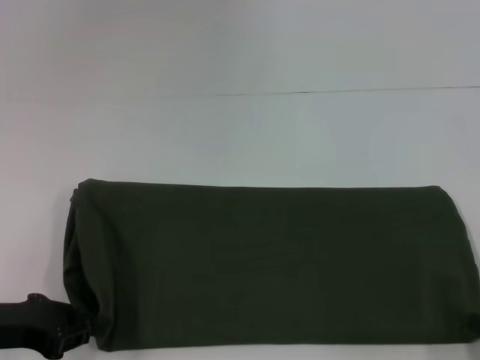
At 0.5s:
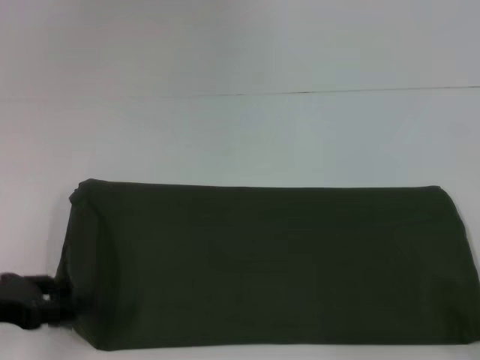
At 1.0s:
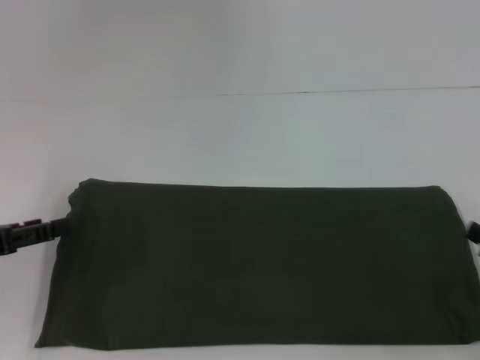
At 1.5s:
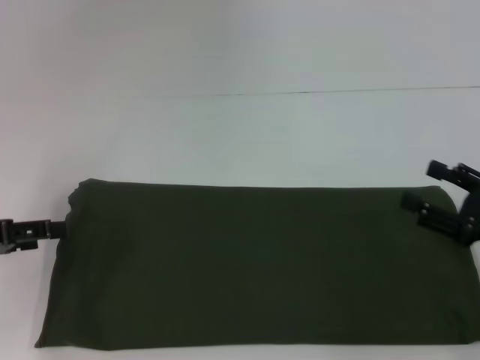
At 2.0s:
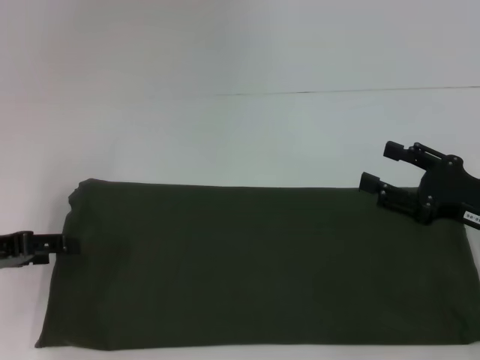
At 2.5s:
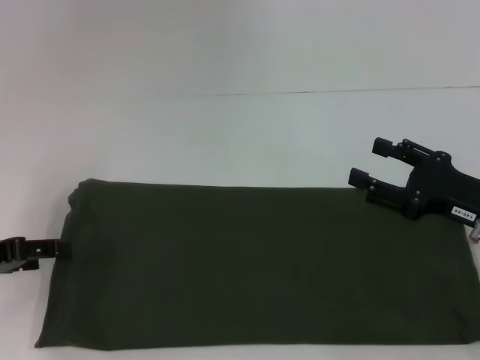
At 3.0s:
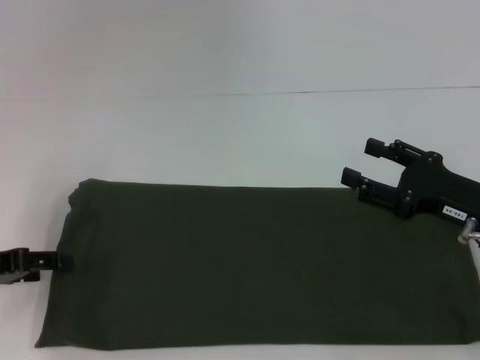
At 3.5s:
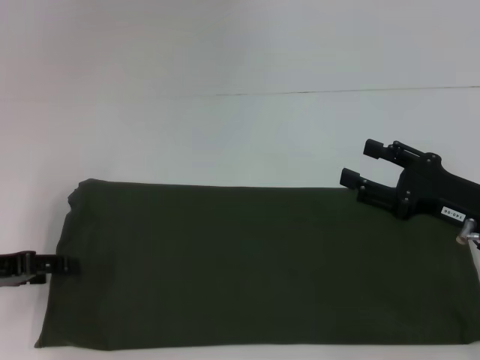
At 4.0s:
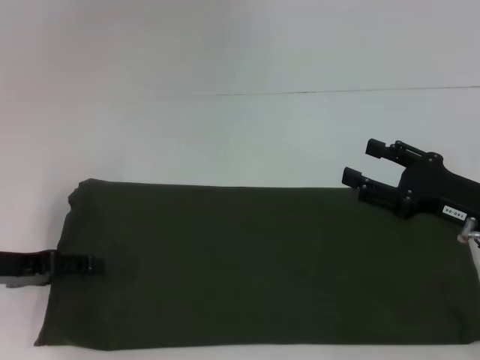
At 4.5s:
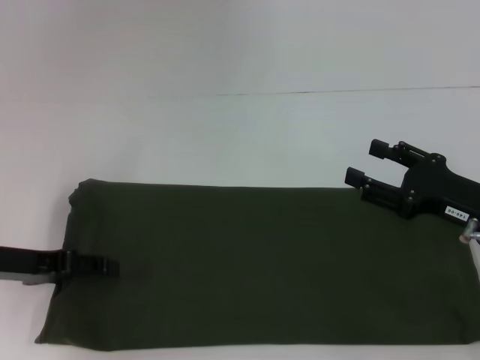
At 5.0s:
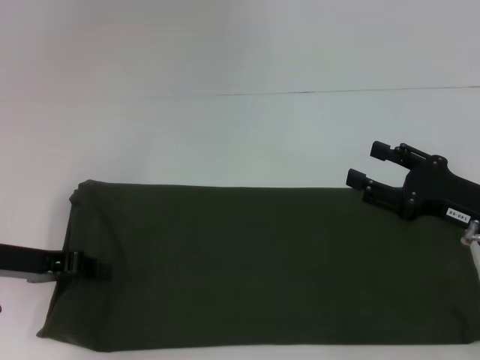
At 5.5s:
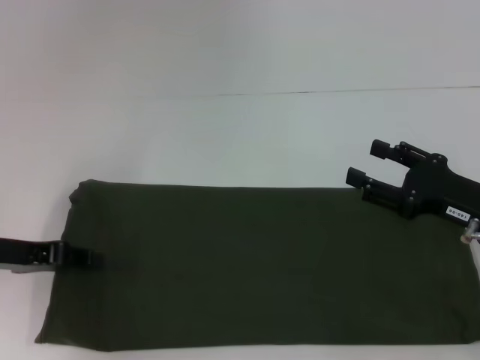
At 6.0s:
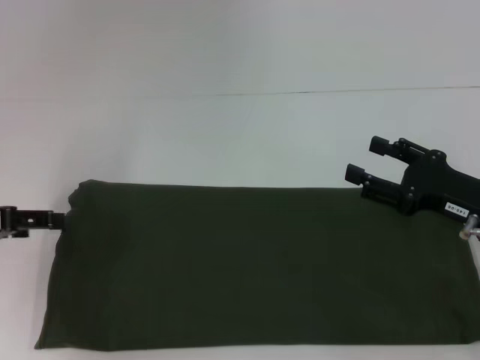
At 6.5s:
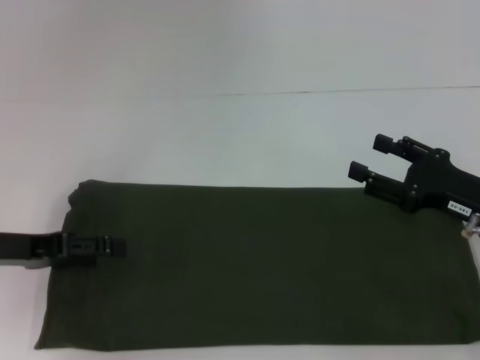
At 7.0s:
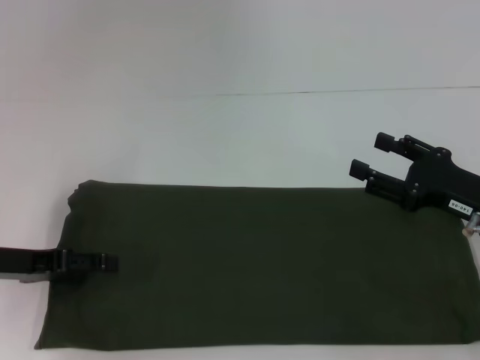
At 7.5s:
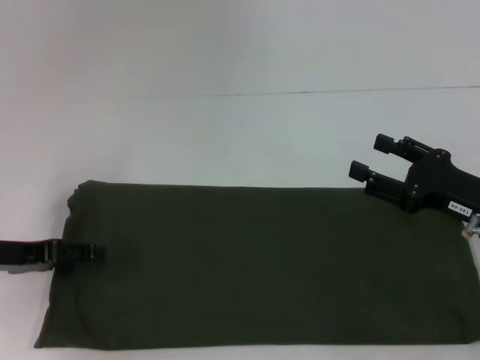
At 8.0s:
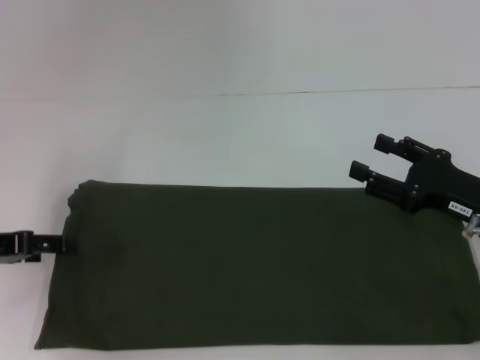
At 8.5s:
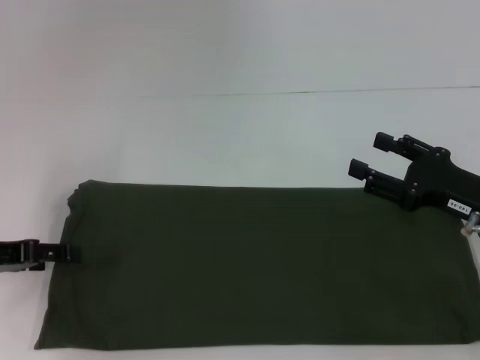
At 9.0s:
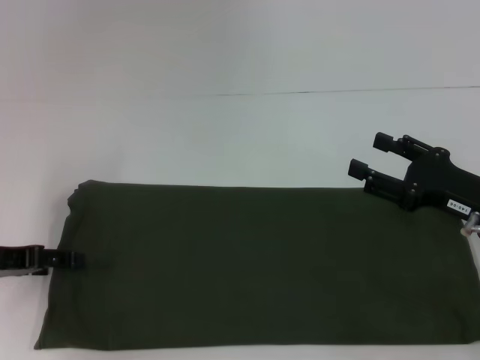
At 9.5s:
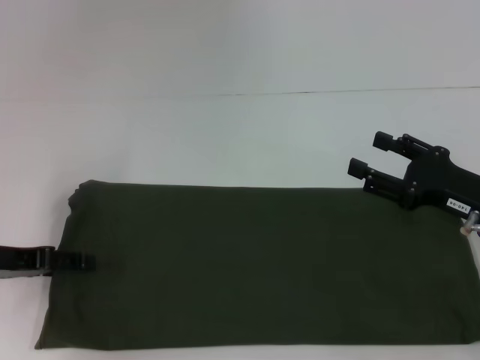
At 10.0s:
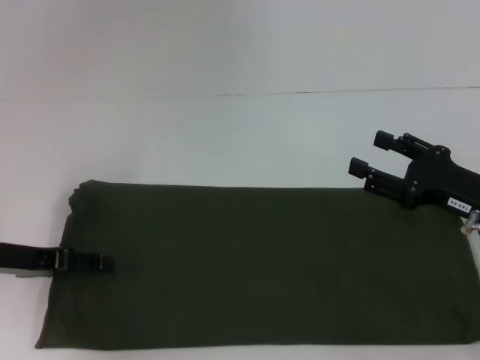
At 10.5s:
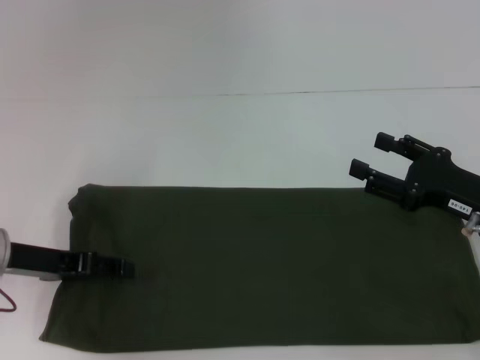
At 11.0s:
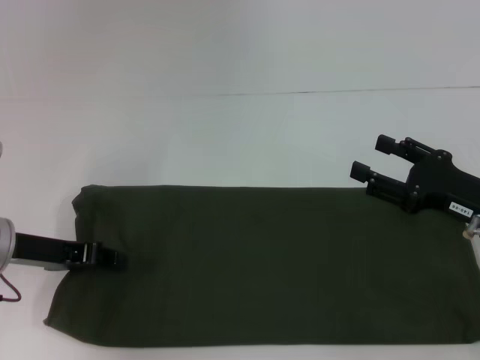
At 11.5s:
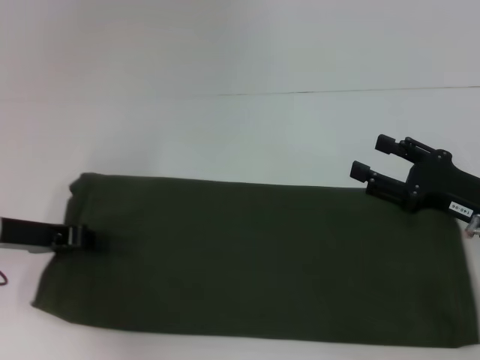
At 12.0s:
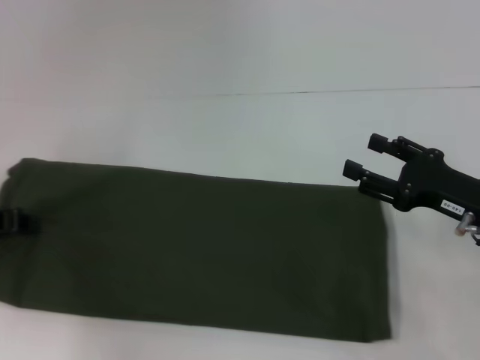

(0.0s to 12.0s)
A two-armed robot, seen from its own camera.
0.0s - 2.0s: The left gripper heads forward, covering roughly 5 cm, and opens up. The right gripper shifts approximately 20 cm forward and upward, and opens its fingers.
2.0s - 4.0s: There are only small adjustments of the grippers.
4.0s - 6.0s: The left gripper moves upward, about 5 cm, and closes, then reopens.
6.0s - 8.0s: The grippers move only a little.
8.0s - 10.0s: The grippers make only small movements.
10.0s - 12.0s: The left gripper closes up.

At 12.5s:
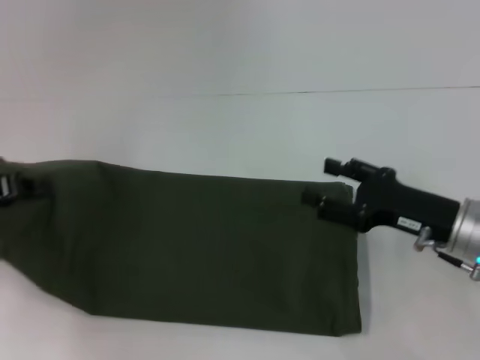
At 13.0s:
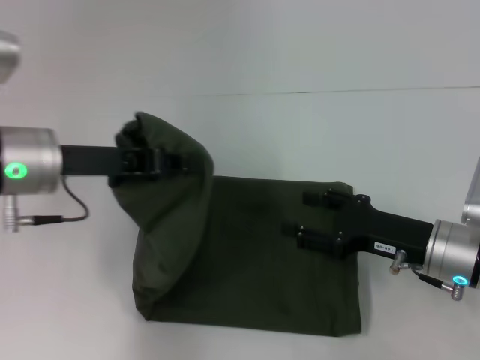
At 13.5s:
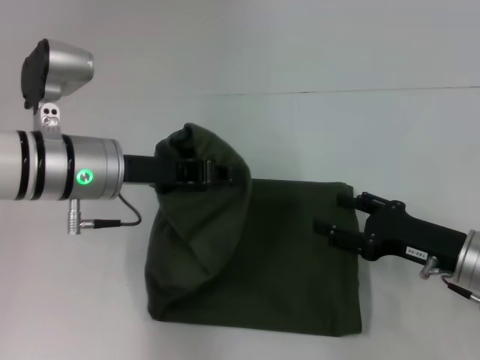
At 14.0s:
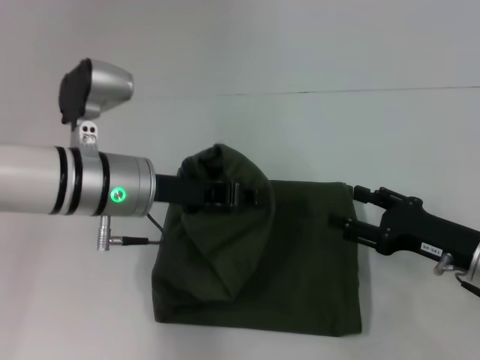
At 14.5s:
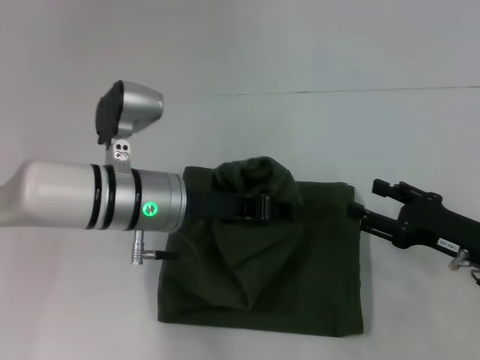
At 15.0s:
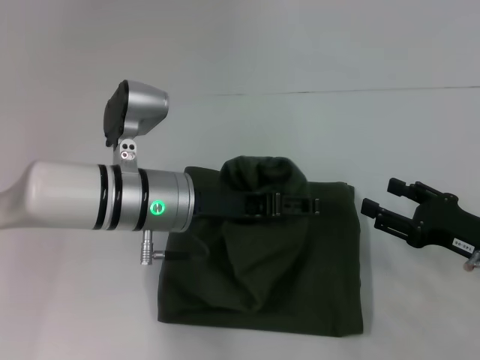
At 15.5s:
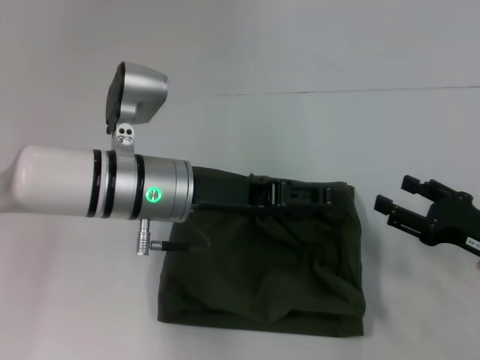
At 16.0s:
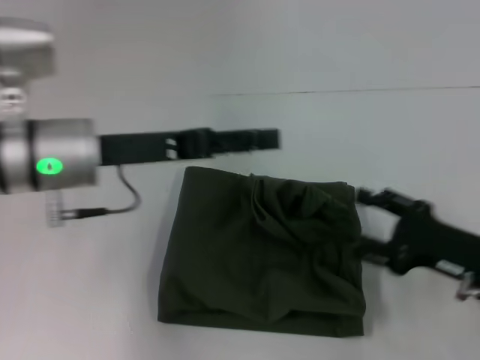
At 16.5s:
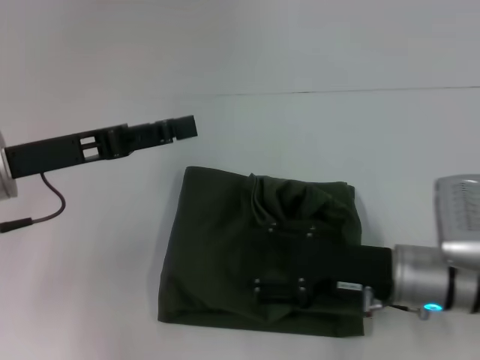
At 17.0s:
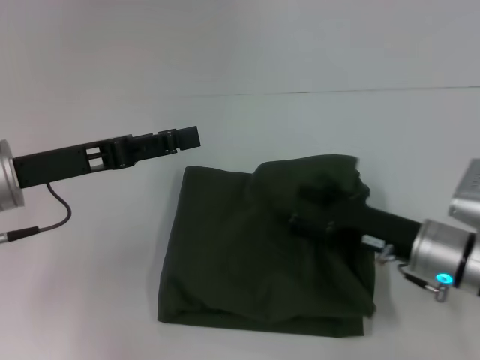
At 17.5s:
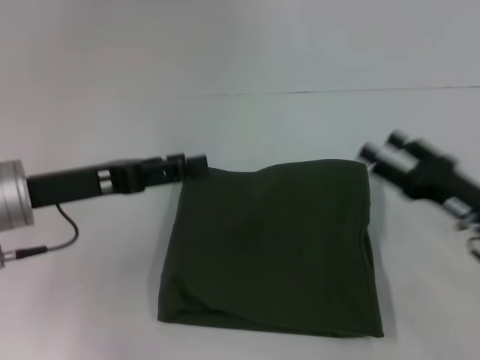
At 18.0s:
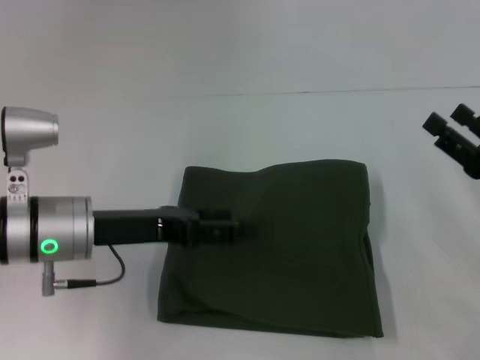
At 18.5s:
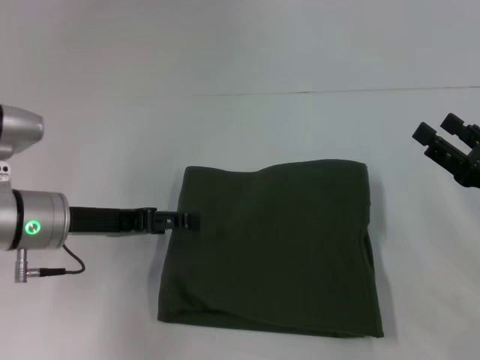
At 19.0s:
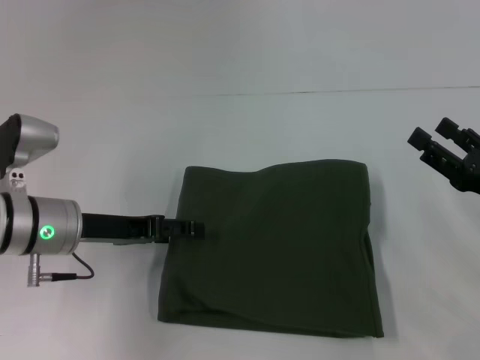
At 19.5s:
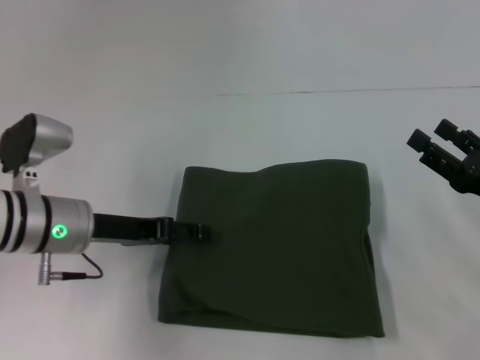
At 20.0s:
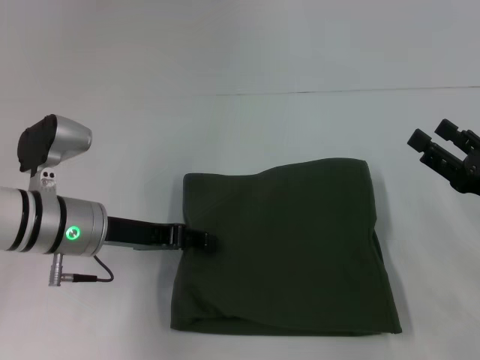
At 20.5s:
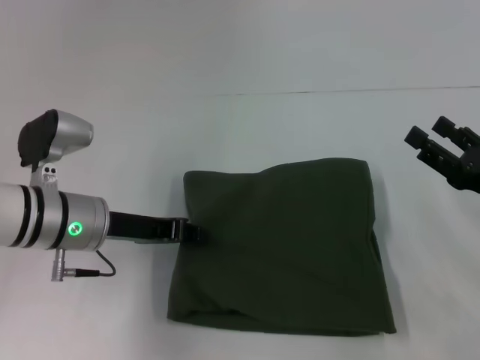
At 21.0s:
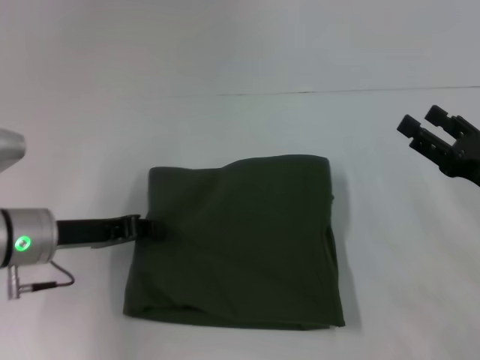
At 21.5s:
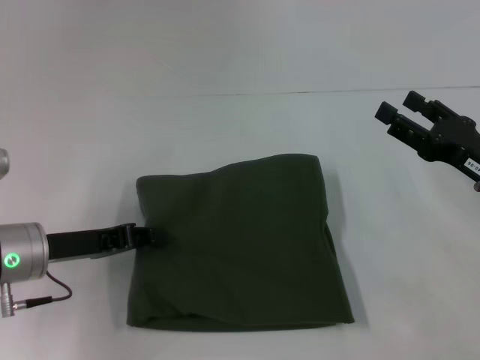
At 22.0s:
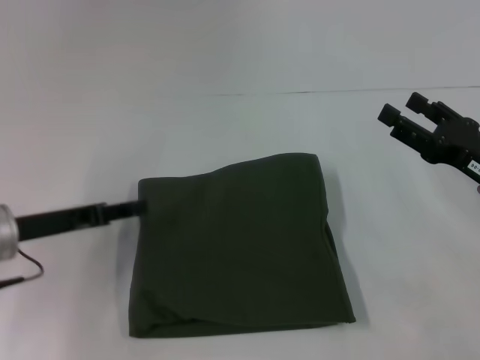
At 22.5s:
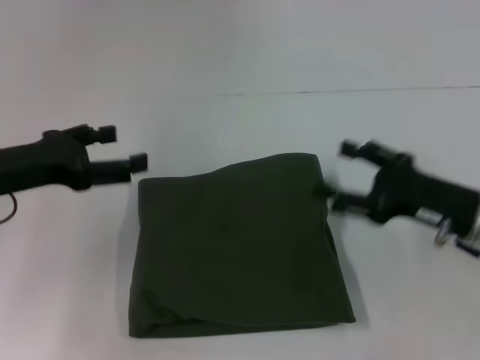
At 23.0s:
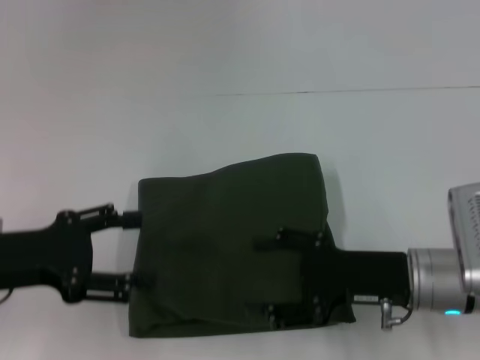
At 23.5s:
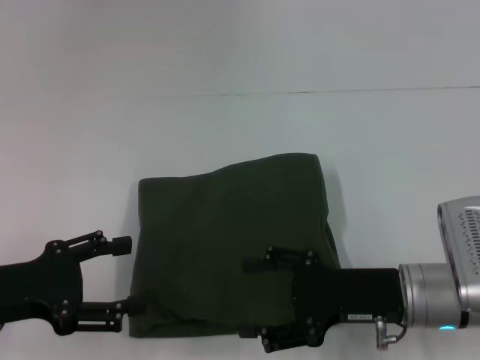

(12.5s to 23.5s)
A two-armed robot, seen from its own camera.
Step, 12.5s - 15.5s: Fold the clothes with your left hand.
12.5s - 14.5s: The right gripper changes place by about 5 cm, while the left gripper heads to the right, covering some 20 cm.
14.5s - 16.0s: The left gripper moves to the left and upward, about 10 cm, and opens.
16.0s - 18.0s: The left gripper moves downward, approximately 5 cm.
20.0s - 21.5s: The left gripper travels to the left by approximately 5 cm, and closes.
21.5s - 23.5s: The right gripper goes approximately 10 cm to the left. Meanwhile the left gripper moves backward, some 5 cm, and opens its fingers.

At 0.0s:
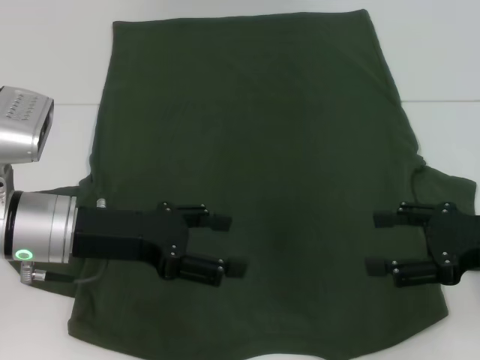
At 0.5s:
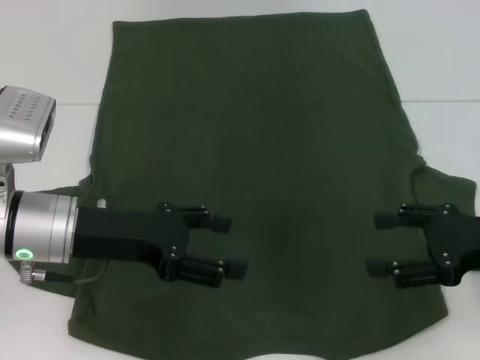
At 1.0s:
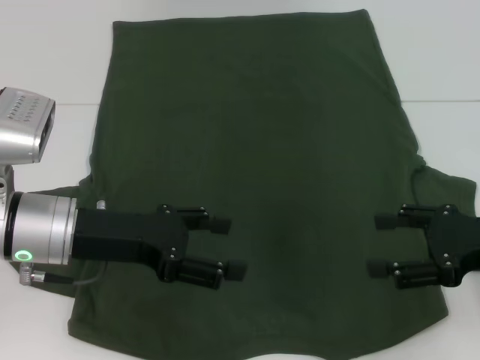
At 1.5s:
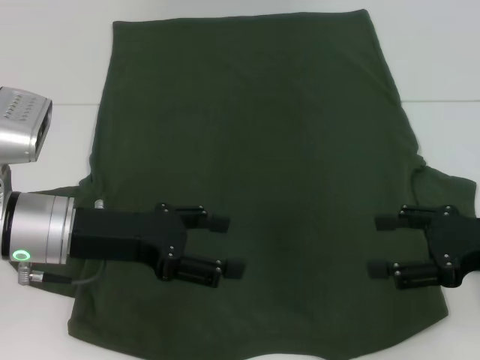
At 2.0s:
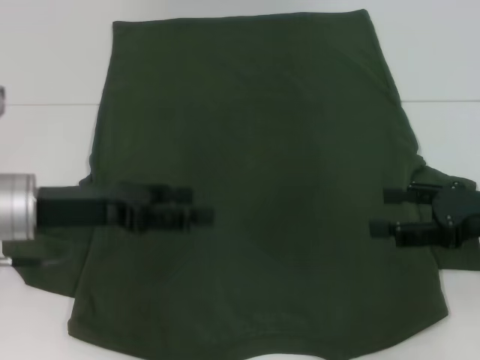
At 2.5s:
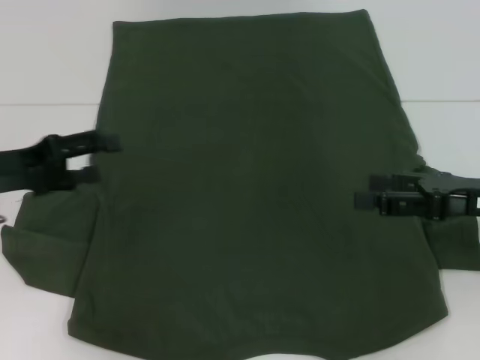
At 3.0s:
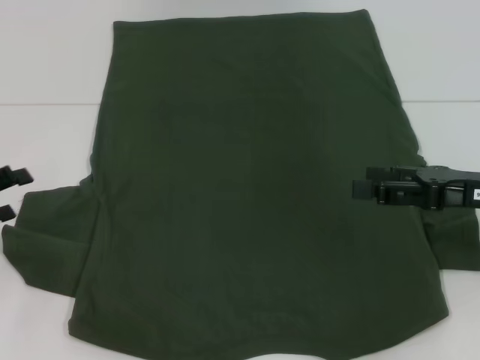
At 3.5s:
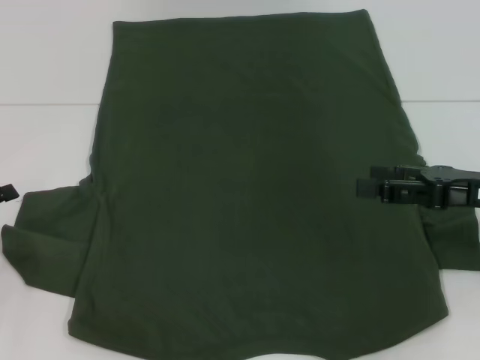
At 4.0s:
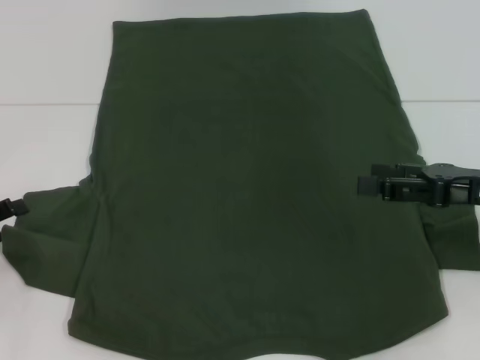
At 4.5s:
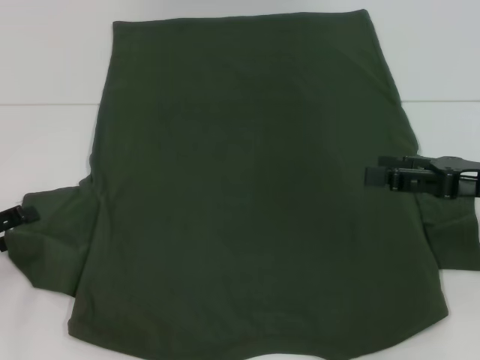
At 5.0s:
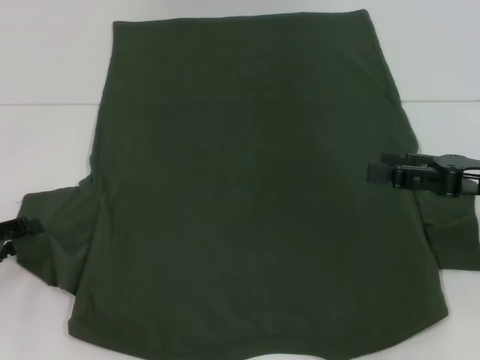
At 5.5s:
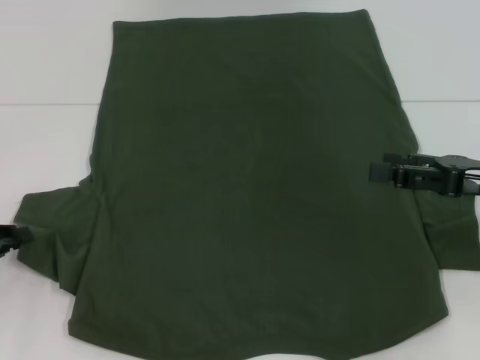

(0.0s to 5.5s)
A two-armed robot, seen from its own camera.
0.0s - 2.0s: The grippers move only a little.
2.0s - 3.5s: The left gripper shifts approximately 15 cm to the left.
3.5s - 5.5s: The left gripper closes up.
